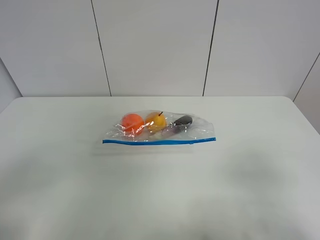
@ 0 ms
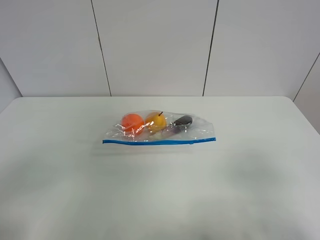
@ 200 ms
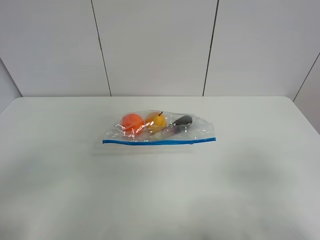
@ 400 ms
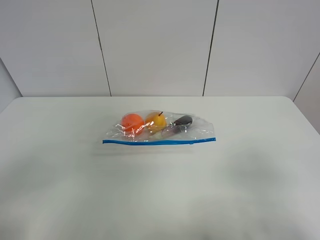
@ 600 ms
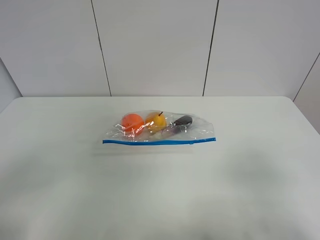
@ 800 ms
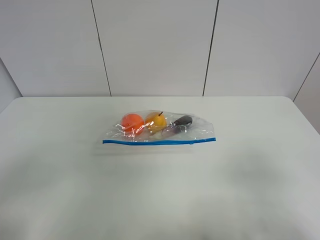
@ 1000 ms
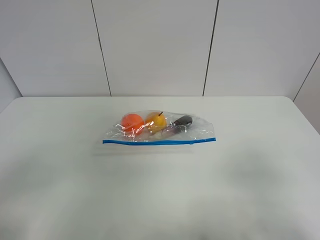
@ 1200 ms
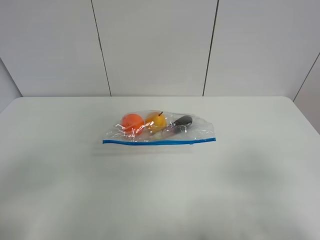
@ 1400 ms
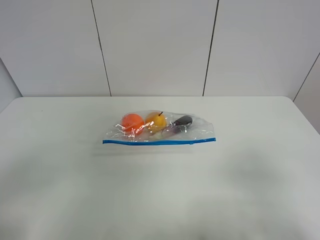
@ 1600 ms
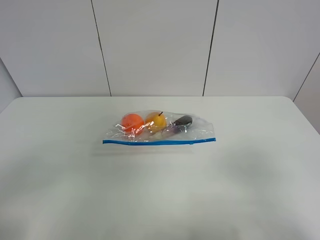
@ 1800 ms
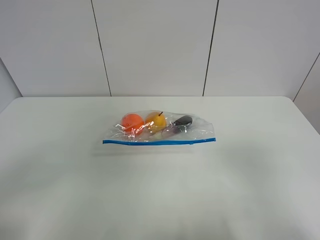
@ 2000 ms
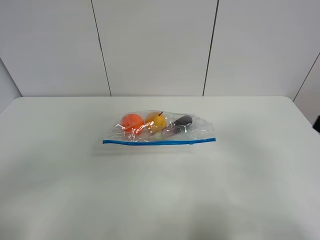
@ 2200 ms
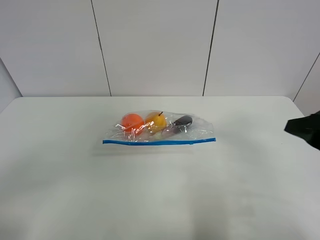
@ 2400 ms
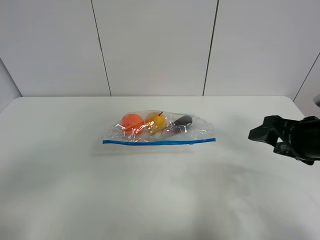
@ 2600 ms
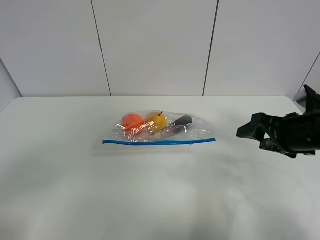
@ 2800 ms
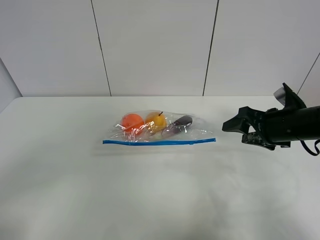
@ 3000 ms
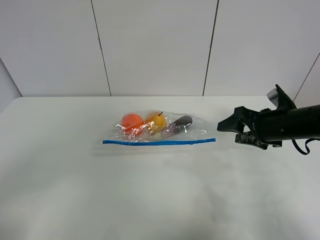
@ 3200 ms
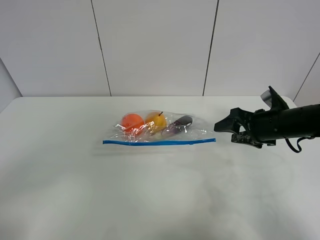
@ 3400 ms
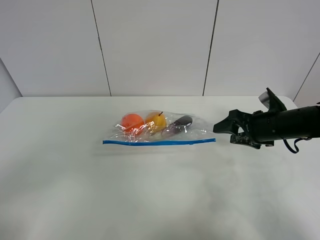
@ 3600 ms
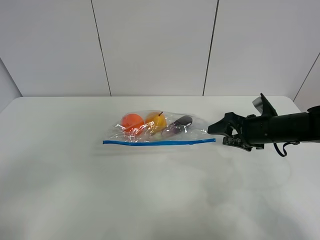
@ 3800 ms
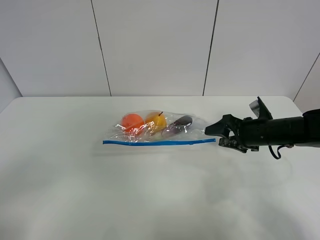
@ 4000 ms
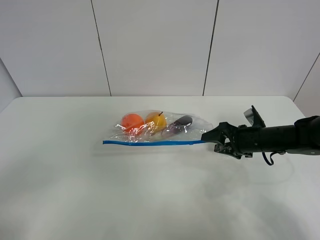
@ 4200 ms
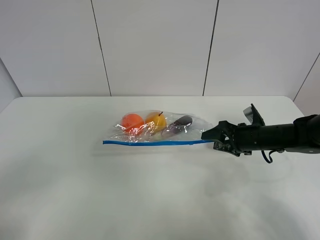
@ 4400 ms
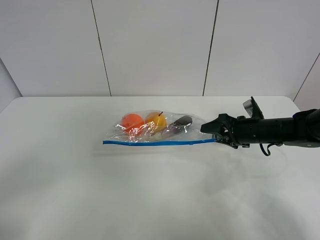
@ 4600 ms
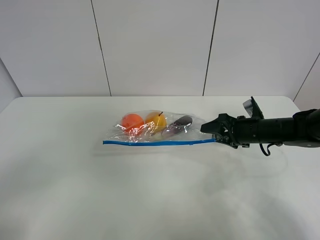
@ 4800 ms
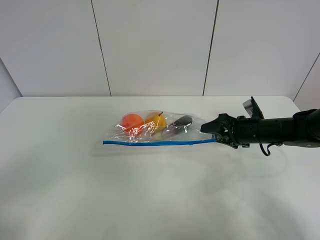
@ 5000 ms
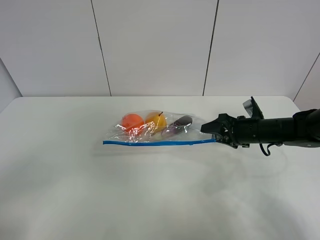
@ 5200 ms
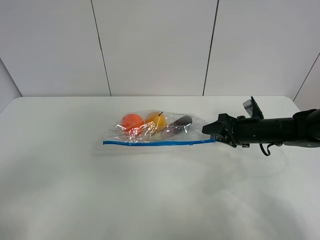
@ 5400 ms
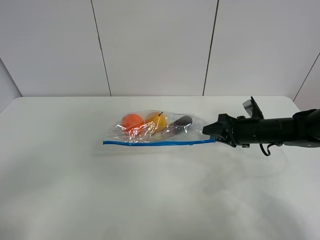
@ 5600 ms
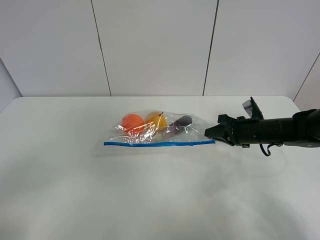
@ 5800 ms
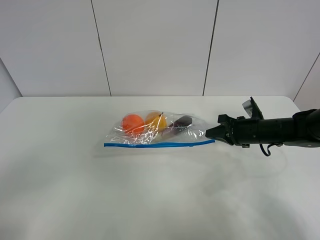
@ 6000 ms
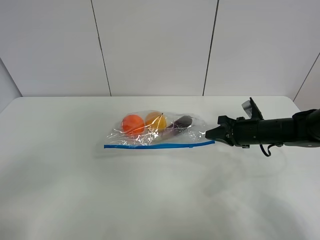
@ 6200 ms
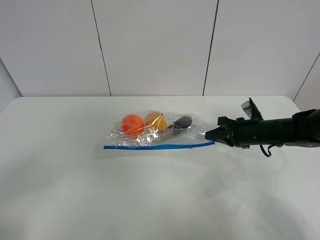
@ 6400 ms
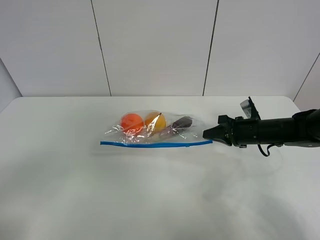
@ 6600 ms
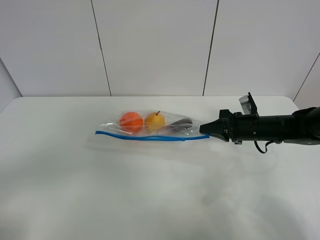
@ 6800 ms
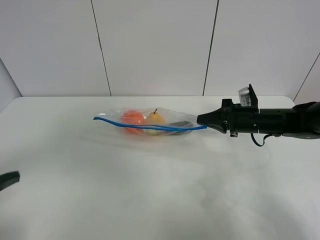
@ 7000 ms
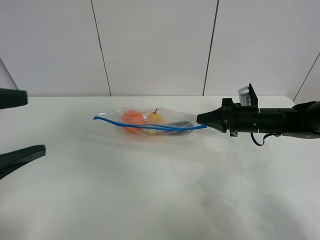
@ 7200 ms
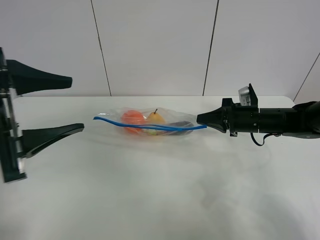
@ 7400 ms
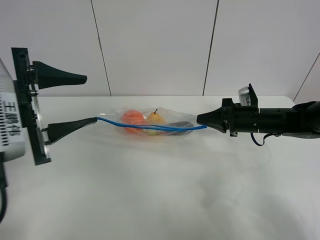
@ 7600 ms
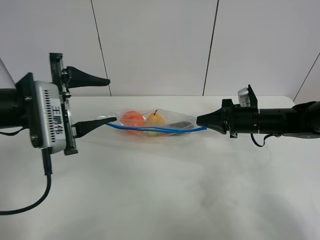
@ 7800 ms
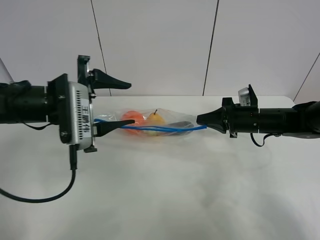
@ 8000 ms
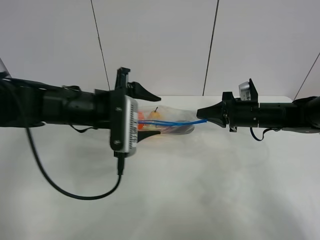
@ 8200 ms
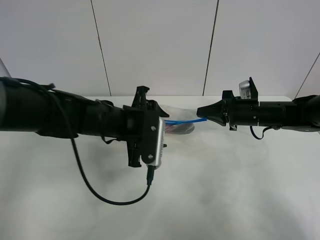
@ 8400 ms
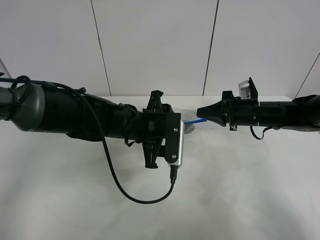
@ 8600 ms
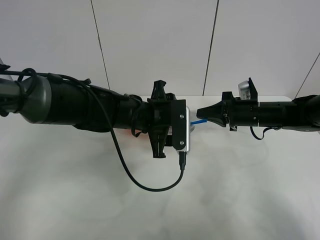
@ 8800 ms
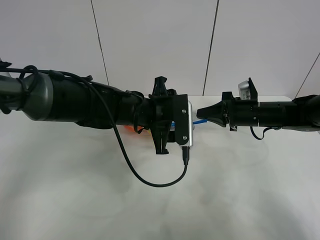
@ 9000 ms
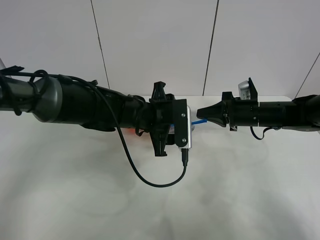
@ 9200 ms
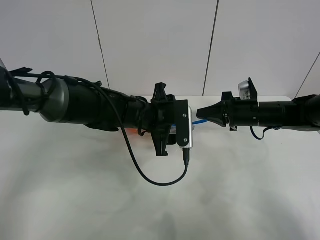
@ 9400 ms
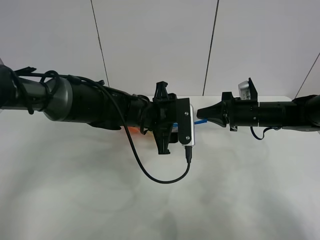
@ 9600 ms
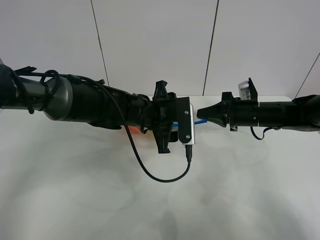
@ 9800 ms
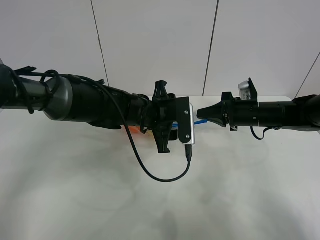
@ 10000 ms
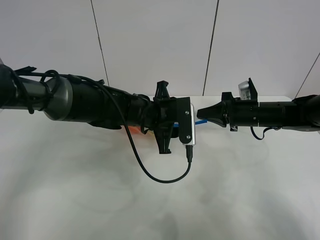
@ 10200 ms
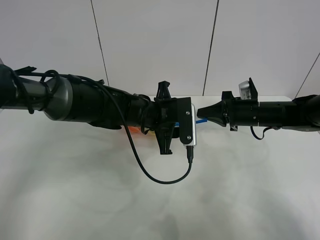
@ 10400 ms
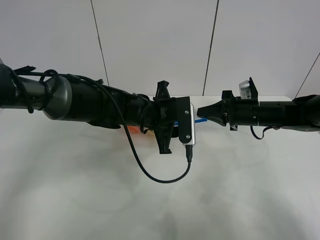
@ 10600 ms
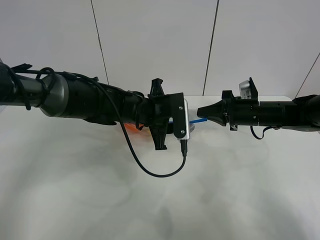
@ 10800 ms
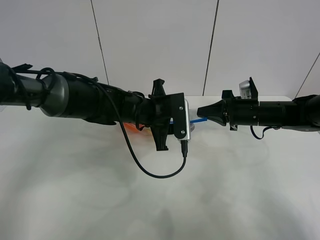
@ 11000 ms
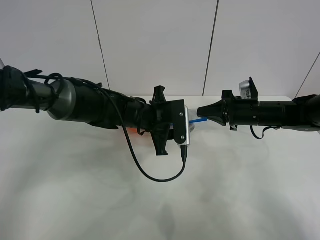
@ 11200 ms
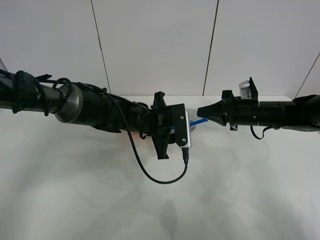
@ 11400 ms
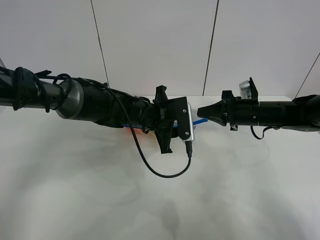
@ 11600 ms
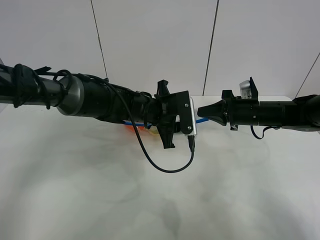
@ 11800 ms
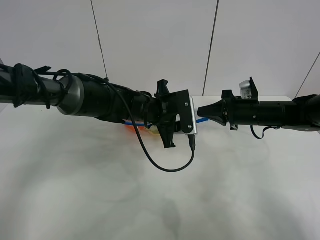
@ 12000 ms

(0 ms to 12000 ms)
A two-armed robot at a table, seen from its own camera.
Step, 0 ms - 6000 ms: Grasp the fruit bag with right gripper.
Step, 6200 ms - 7400 ms: Lift the fruit bag with your right gripper.
0 ms - 1600 ms: Neither gripper changes place.
1600 ms - 3000 ms: The right gripper moves forward, some 25 cm.
3000 ms - 4400 ms: The right gripper moves downward and forward, some 10 cm.
4400 ms - 6000 ms: The right gripper closes up.
6000 ms - 7600 ms: The left gripper is displaced forward by some 20 cm.
7600 ms - 9000 ms: The left gripper travels to the right, forward and downward by some 25 cm.
9000 ms - 12000 ms: The grippers move only a little.

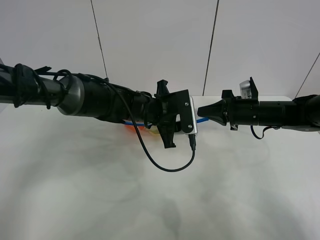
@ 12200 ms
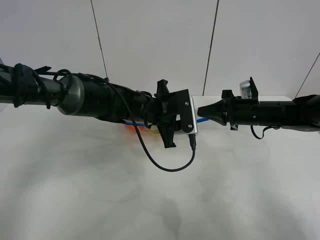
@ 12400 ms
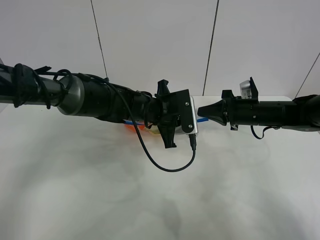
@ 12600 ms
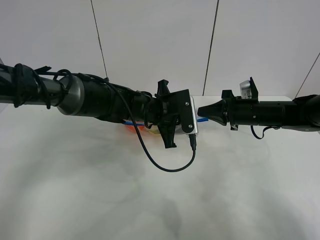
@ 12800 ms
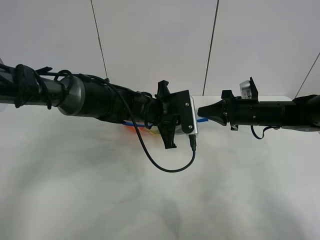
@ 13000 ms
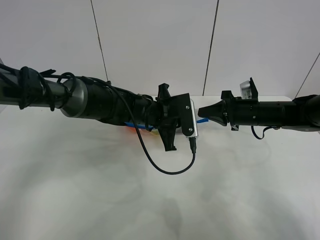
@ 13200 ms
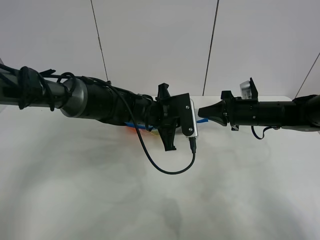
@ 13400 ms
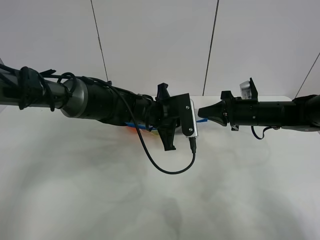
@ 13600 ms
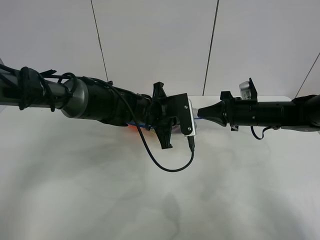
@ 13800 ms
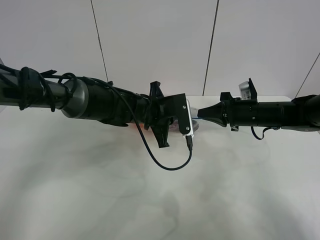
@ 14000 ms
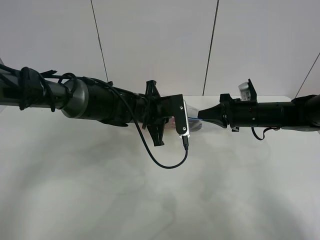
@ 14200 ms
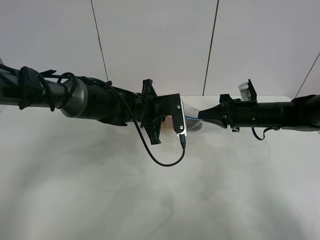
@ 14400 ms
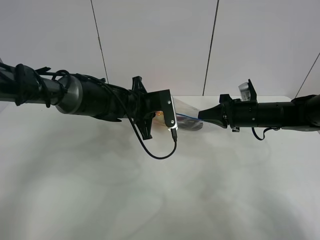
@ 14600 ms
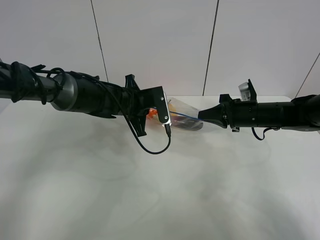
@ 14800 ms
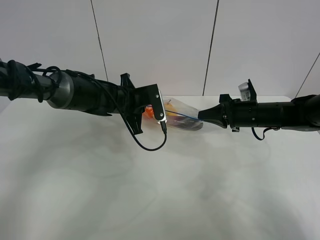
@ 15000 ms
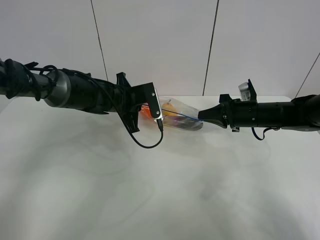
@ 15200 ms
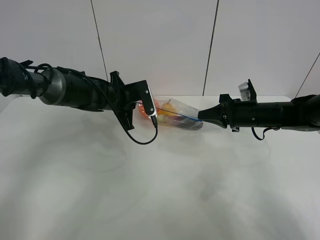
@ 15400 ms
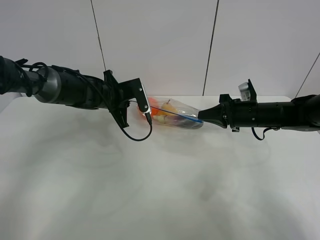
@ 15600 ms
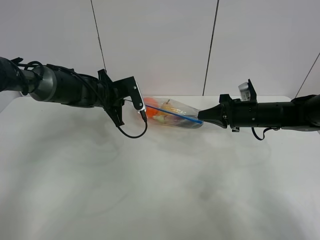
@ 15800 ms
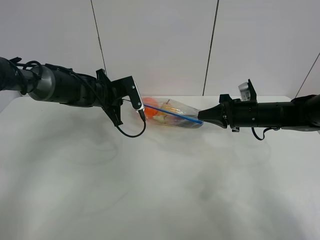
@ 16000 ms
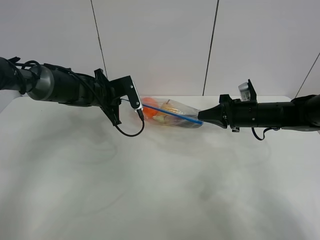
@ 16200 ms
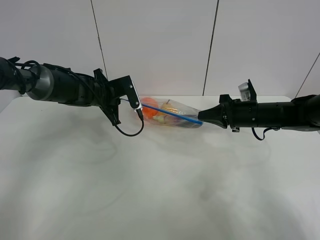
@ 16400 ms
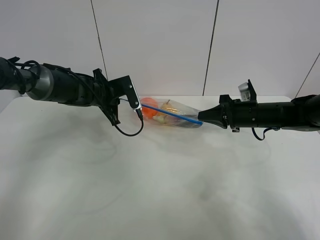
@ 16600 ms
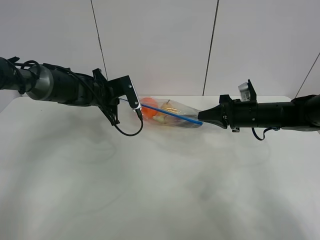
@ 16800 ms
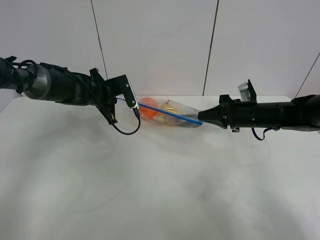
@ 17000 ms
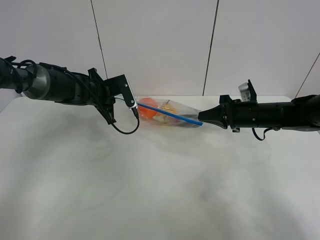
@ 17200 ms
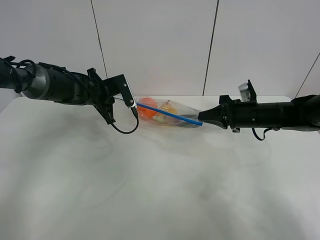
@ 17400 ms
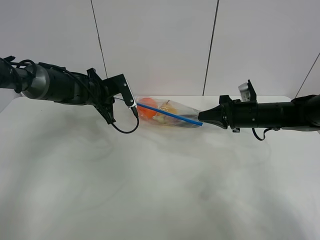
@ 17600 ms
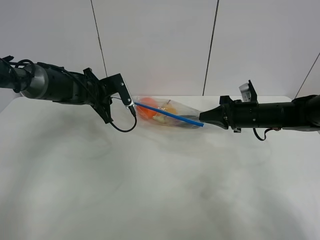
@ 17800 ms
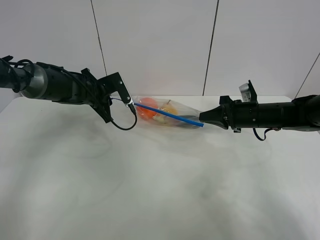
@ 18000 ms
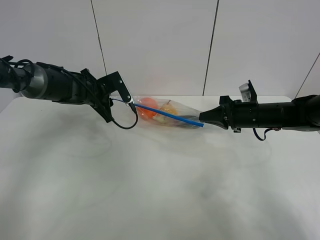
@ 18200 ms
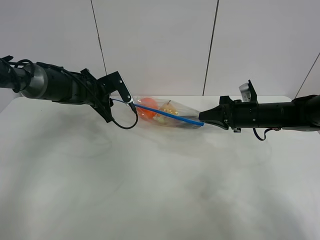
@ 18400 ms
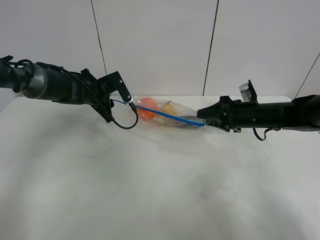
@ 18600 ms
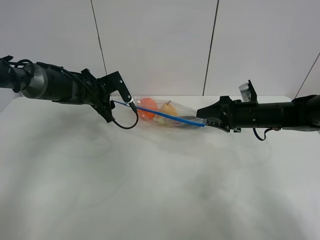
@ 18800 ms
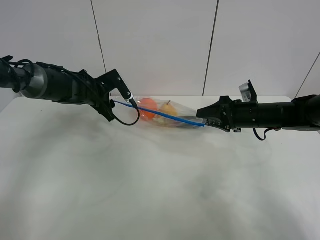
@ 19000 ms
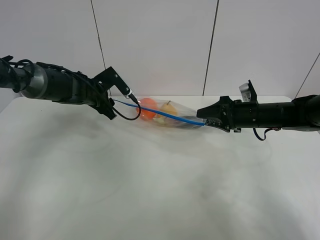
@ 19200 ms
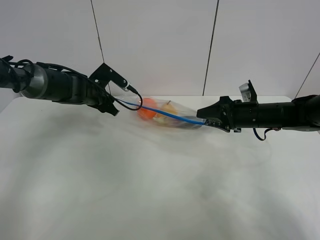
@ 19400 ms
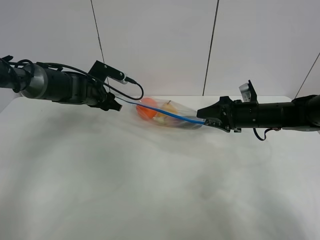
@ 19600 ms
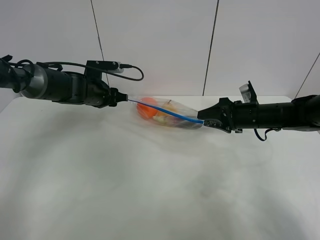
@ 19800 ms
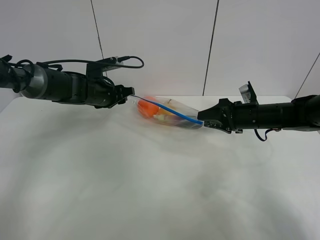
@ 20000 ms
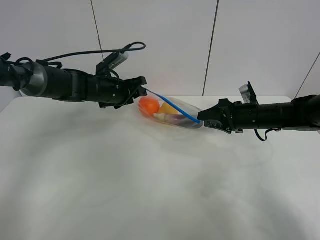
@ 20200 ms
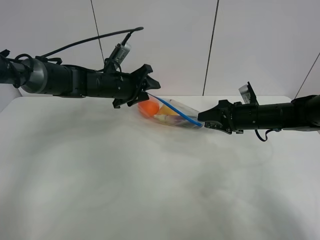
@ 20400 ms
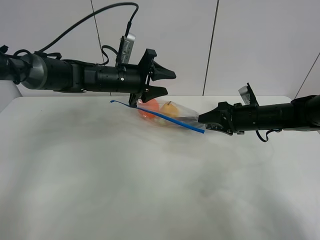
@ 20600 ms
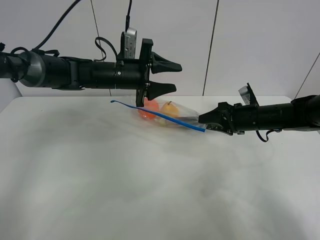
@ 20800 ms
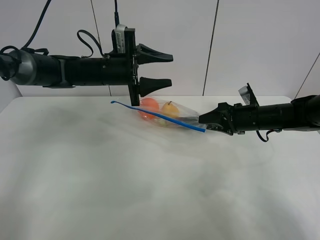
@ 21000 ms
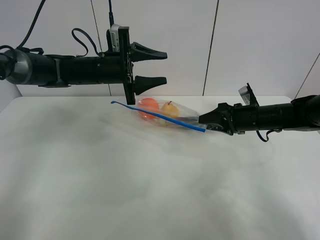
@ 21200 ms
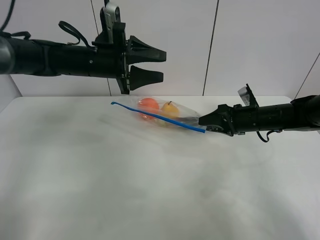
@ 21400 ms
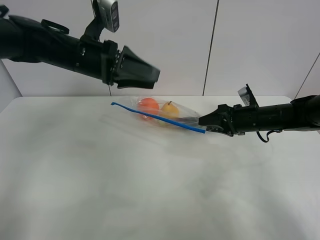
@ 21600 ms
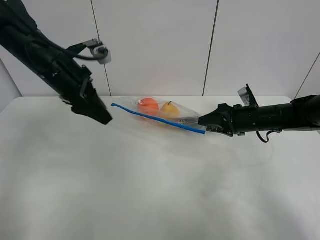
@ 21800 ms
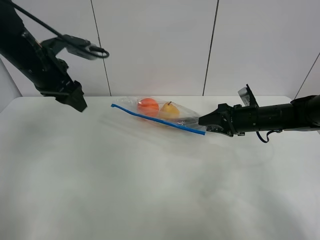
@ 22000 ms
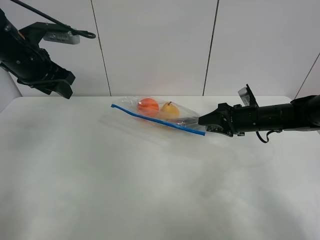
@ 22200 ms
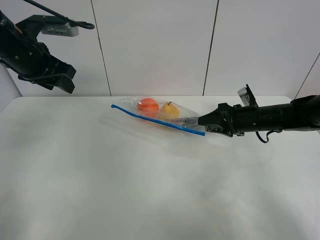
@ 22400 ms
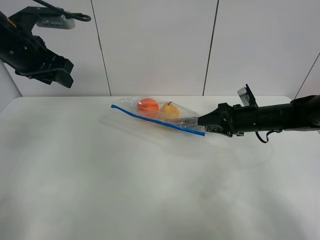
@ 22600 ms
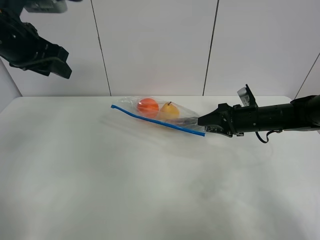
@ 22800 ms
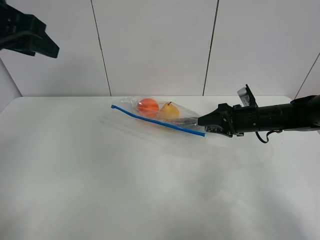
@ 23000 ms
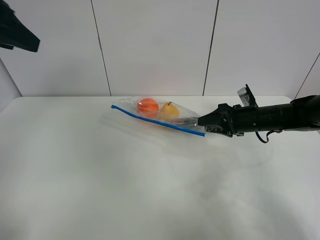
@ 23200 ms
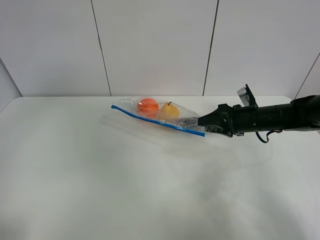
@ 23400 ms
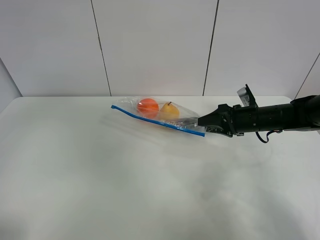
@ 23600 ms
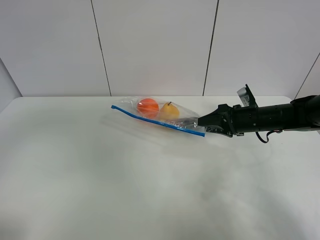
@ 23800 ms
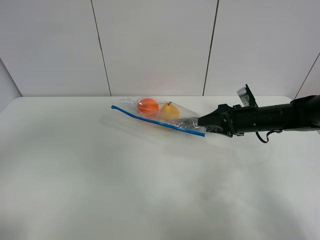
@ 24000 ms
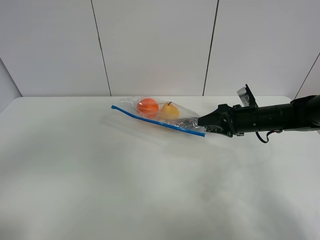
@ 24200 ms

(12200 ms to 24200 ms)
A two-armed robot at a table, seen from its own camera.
Step, 12200 ms - 19200 ms: Pull the fruit bag with left gripper.
12200 ms - 13800 ms: The left gripper closes its fingers.
13800 ms - 15200 ms: The left gripper shifts some 10 cm to the left.
15200 ms - 16600 ms: The left gripper moves to the left, some 5 cm.
16600 ms - 18200 ms: The left gripper opens up.
18200 ms - 19800 ms: The right gripper opens up.
19800 ms - 21200 ms: The left gripper heads upward and to the right, covering about 10 cm.
21200 ms - 22600 ms: The left gripper heads to the left, upward and backward, covering about 15 cm.
22600 ms - 24200 ms: The left gripper heads backward, covering roughly 35 cm.
